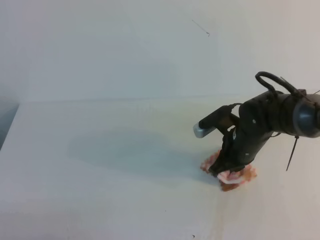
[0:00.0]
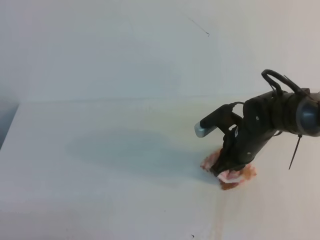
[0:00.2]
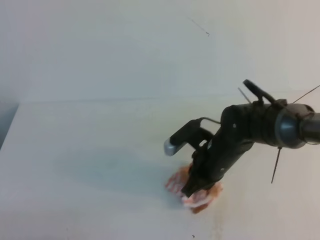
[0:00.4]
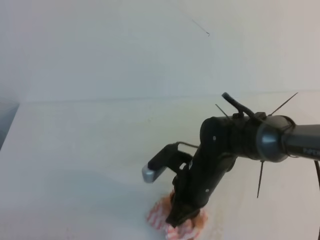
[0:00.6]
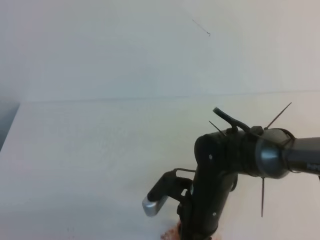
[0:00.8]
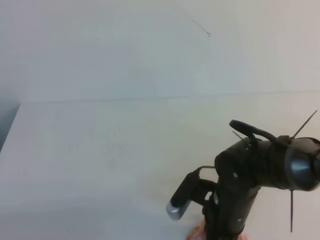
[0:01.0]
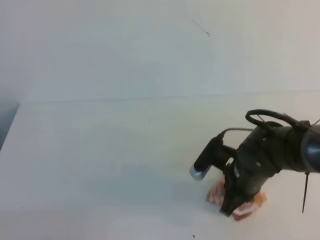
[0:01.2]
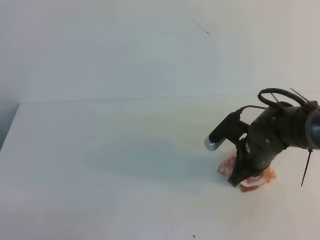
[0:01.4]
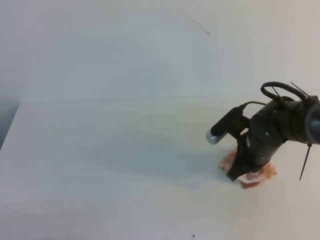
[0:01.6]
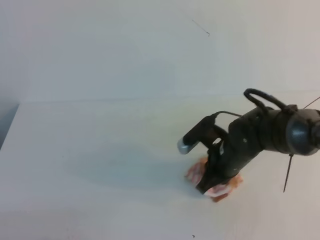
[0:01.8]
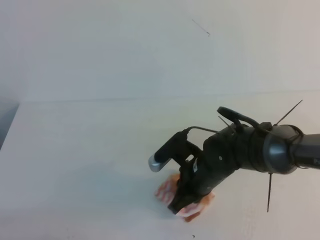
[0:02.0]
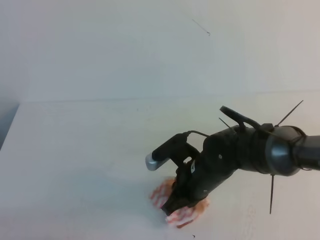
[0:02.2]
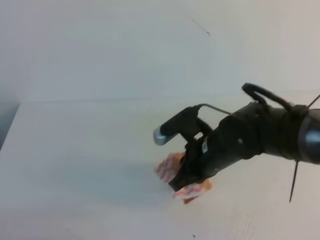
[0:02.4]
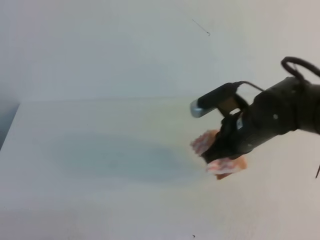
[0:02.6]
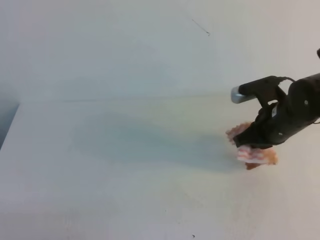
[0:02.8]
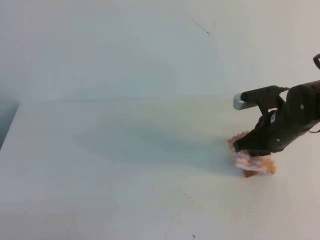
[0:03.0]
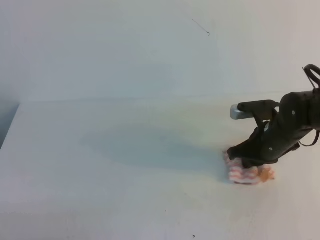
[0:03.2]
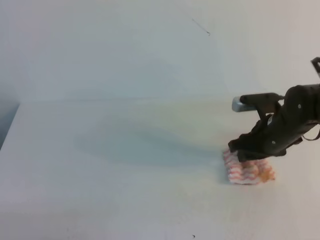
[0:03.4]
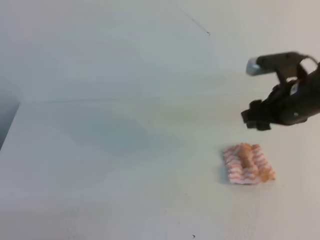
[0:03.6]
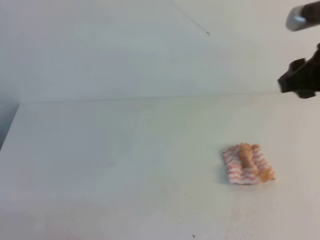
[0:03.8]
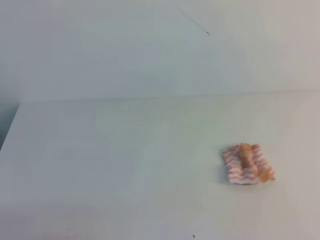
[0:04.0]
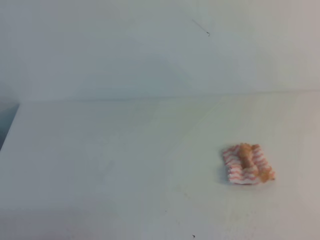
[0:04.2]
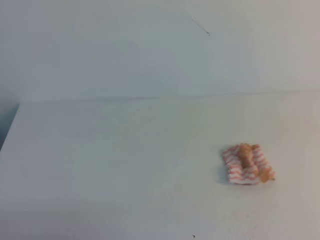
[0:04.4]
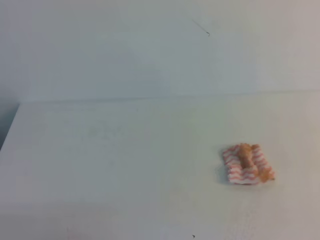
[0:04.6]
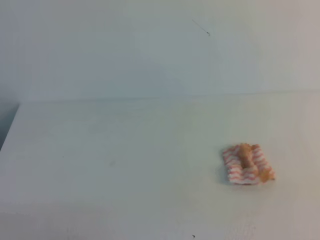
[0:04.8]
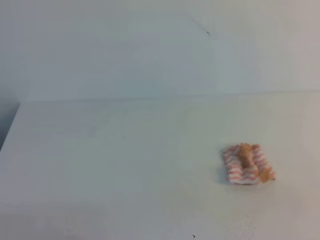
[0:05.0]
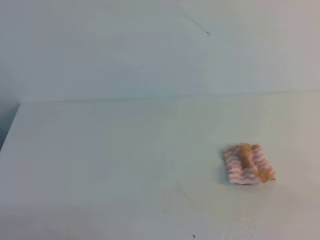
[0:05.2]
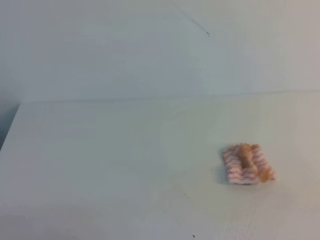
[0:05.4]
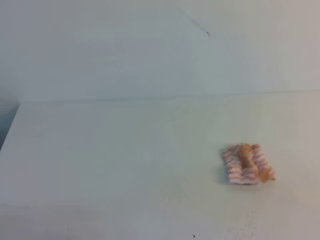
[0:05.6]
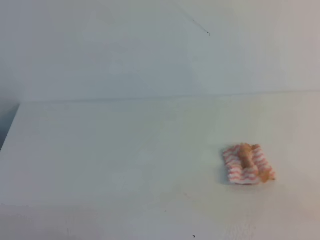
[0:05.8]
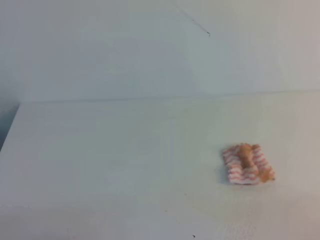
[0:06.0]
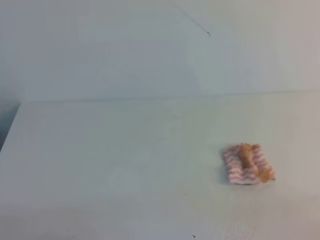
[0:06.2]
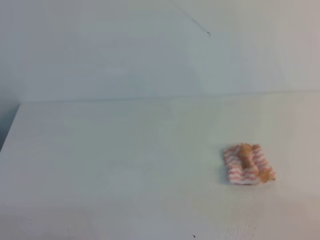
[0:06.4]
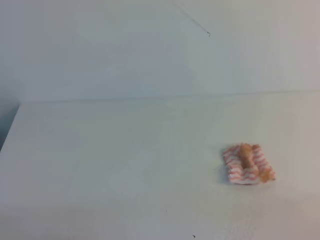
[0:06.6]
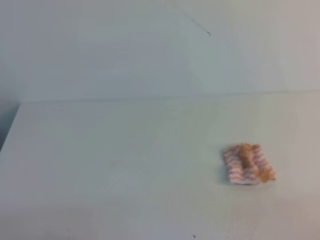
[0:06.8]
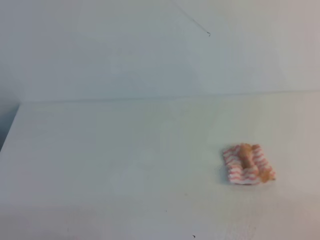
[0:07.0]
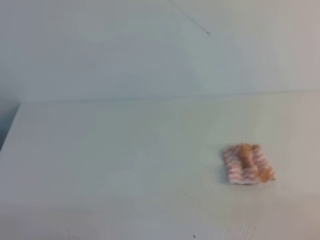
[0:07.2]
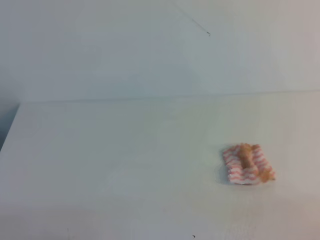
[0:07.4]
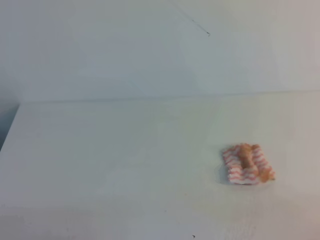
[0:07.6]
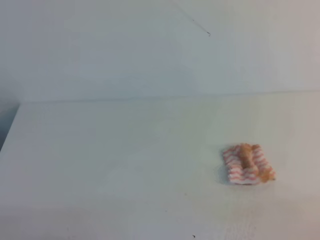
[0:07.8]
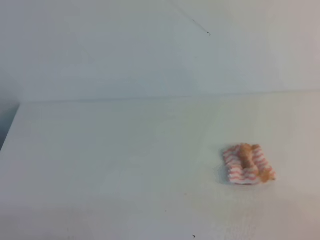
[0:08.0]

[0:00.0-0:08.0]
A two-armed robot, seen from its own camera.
0:00.0 to 0:01.6: The right gripper travels backward and back again, roughly 10 cm each way.
0:03.2 to 0:04.8: The right gripper travels backward, upward and to the right by approximately 40 cm, and closes its fingers.
0:06.4 to 0:08.0: The two grippers keep their place.
